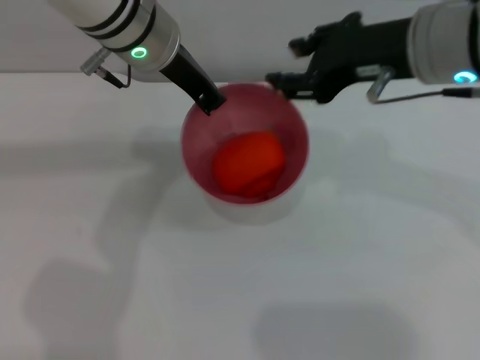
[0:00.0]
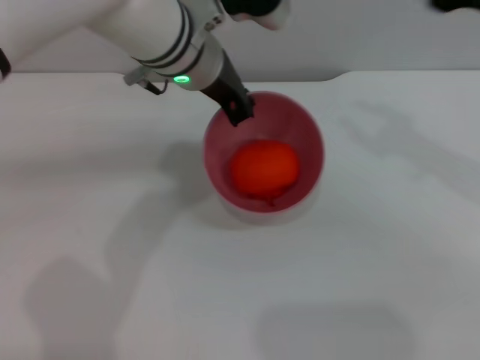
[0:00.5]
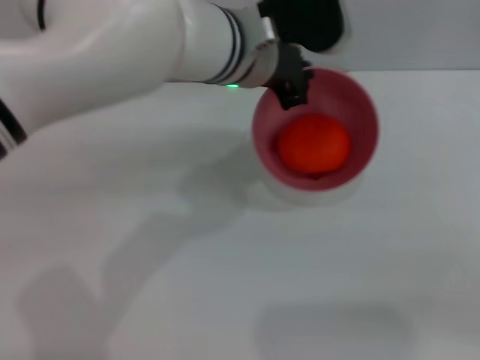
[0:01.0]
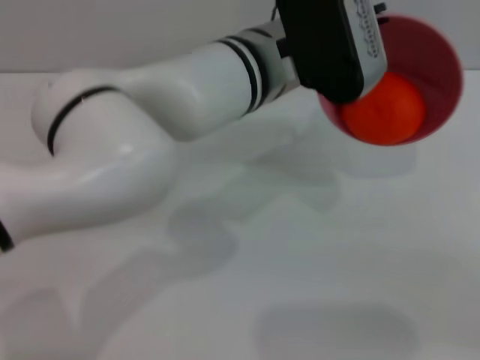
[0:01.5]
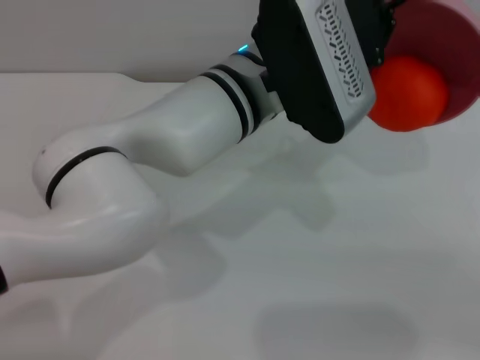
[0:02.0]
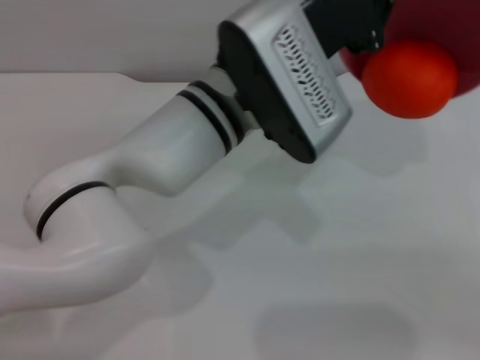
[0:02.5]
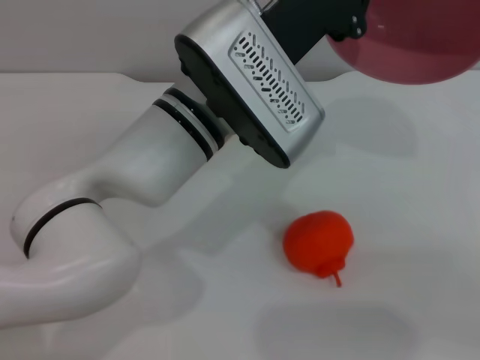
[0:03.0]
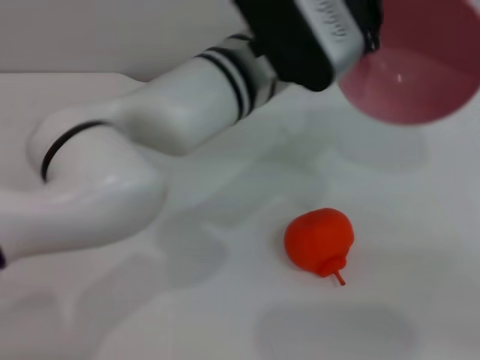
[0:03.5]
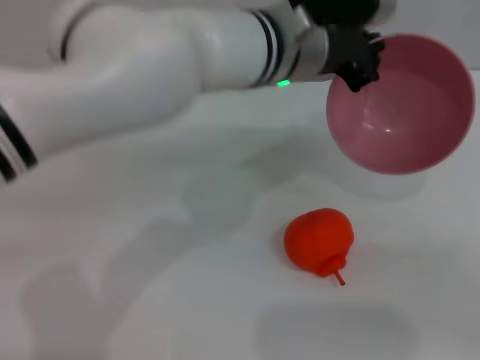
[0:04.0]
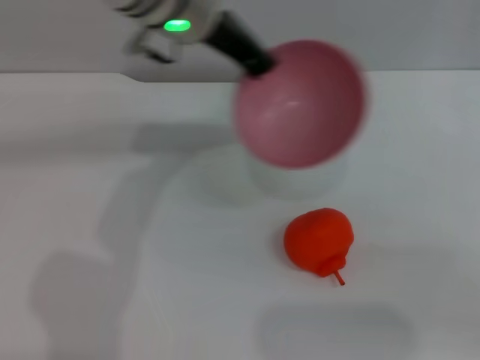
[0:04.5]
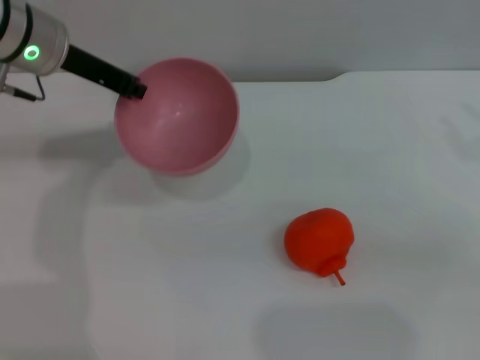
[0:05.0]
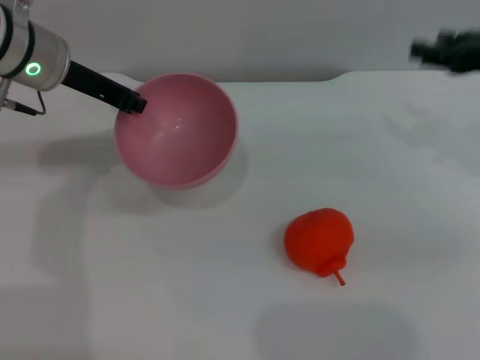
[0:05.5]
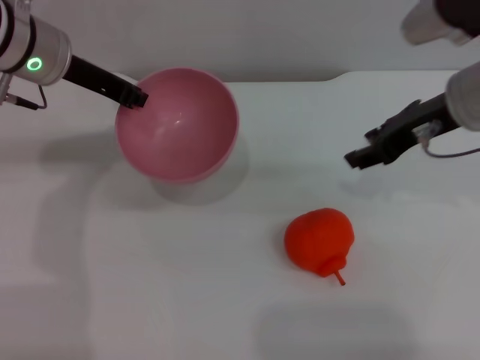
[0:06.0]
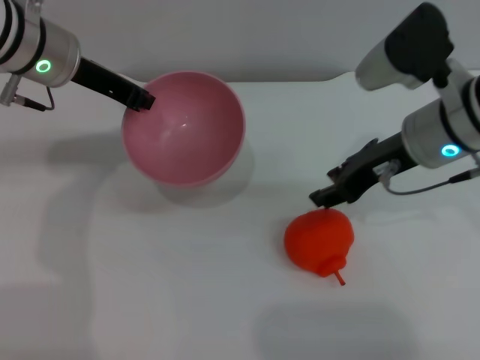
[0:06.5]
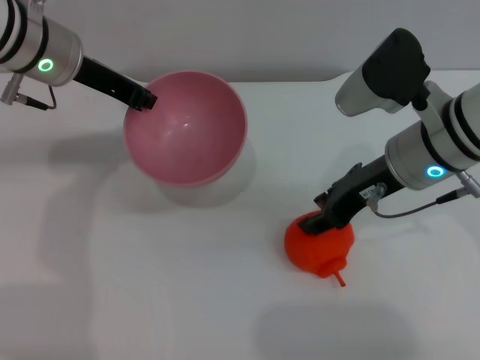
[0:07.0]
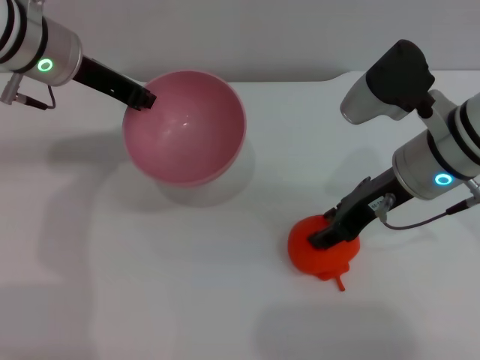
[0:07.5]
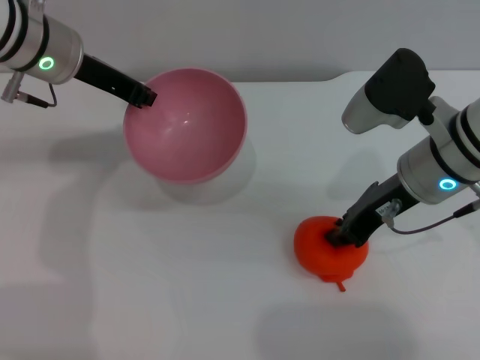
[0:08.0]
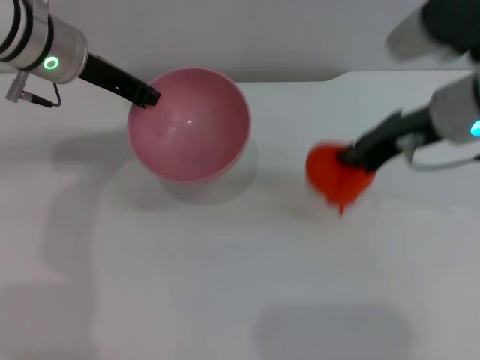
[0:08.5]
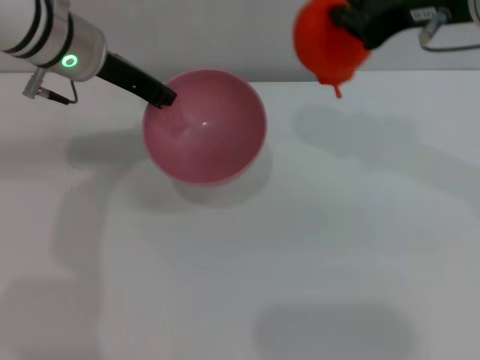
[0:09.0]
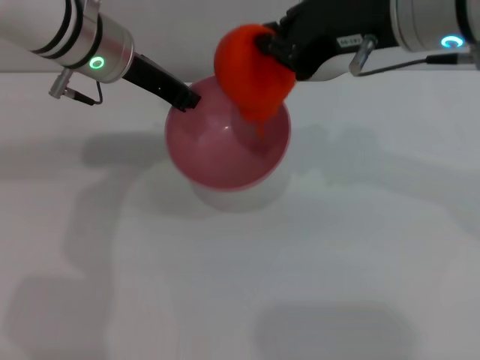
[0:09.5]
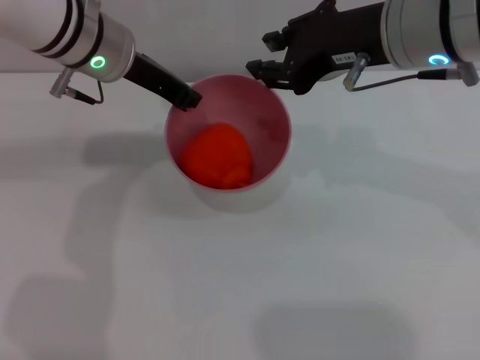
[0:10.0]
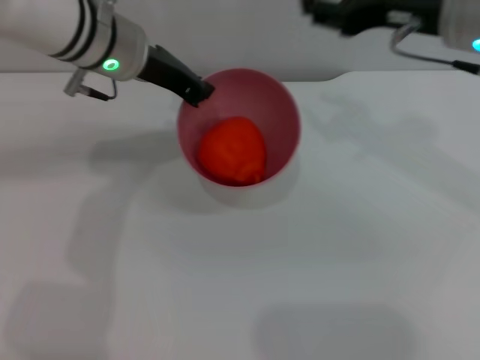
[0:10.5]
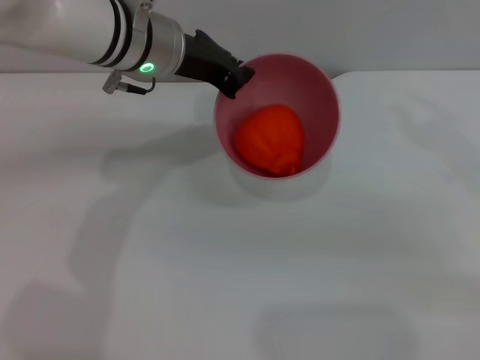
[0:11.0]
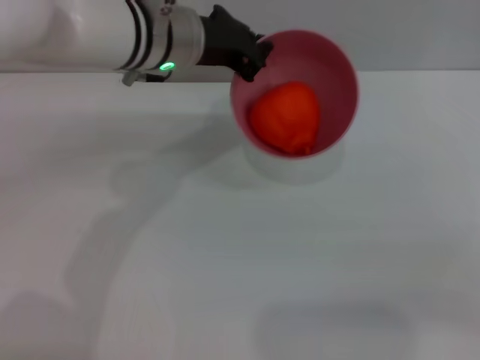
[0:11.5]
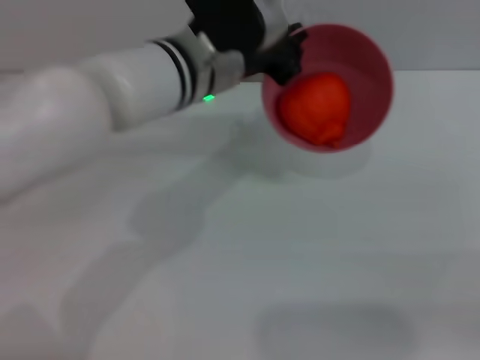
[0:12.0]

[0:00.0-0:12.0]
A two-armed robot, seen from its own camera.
Task of the whole recording: put the orange into the pink bowl and pour it out repeatedly.
Step, 0:00.5 to 0:03.0: Pour the orange out of the bowl.
Step, 0:03.5 to 0:08.5: Pick up the orange with the right gripper.
Step, 0:09.0 to 0:10.0: Place the orange into the bowl.
0:00.0 to 0:02.0: The right gripper shifts approximately 25 cm to the right and backward; the left gripper heads to the right and backward, covering about 10 cm.
0:04.0 to 0:06.0: The right gripper is displaced to the left and forward by some 20 cm, while the left gripper goes some 20 cm to the left.
0:06.0 to 0:08.0: The right gripper goes about 5 cm downward, and closes its fingers.
0:08.0 to 0:10.0: The right gripper moves upward, approximately 10 cm.
0:10.0 to 0:12.0: The right gripper travels to the right, backward and downward by roughly 25 cm, and opens its fingers. Meanwhile the left gripper heads to the right, covering approximately 10 cm.

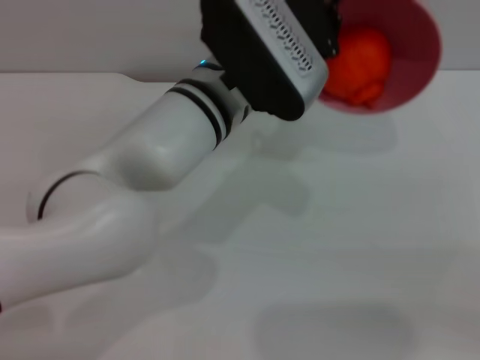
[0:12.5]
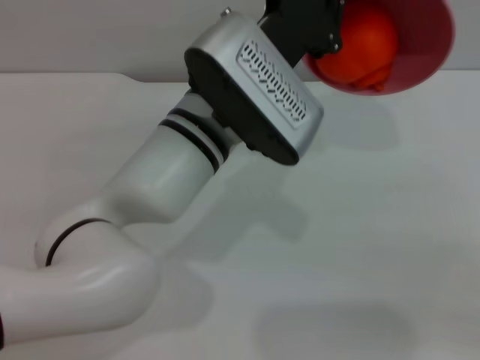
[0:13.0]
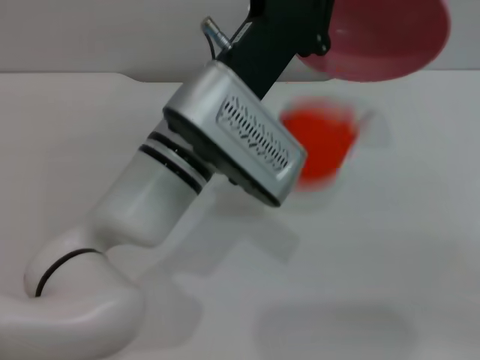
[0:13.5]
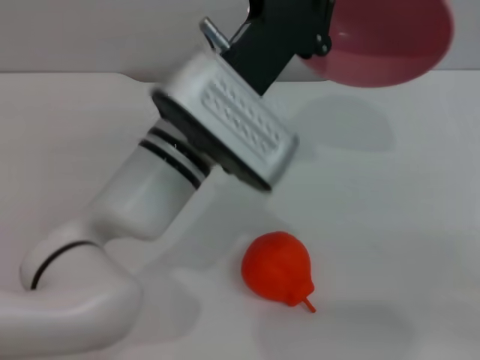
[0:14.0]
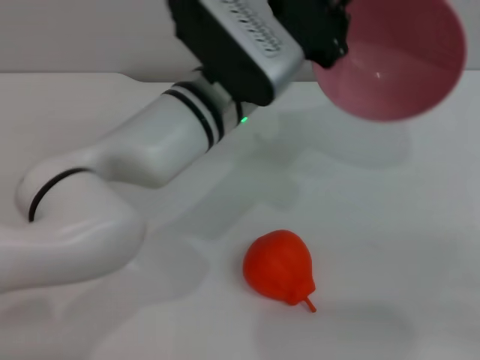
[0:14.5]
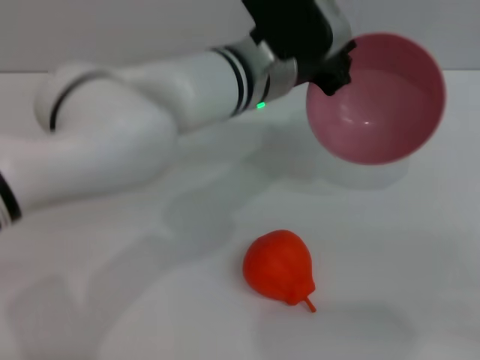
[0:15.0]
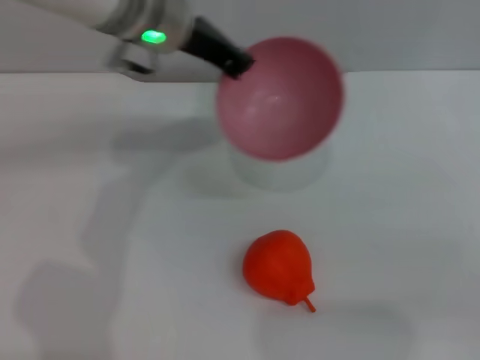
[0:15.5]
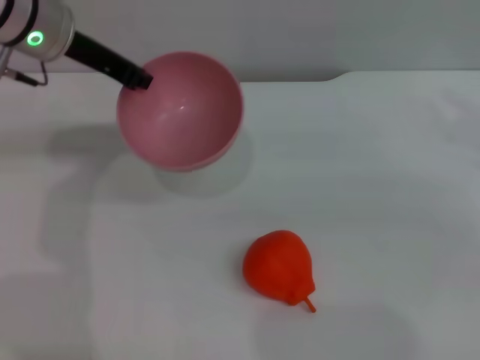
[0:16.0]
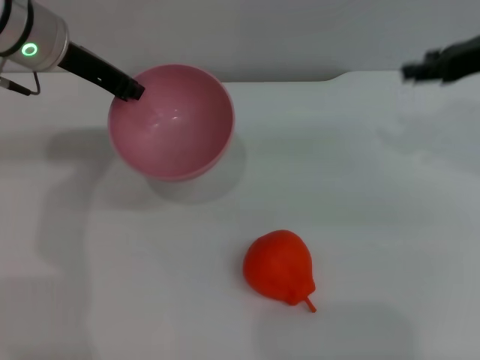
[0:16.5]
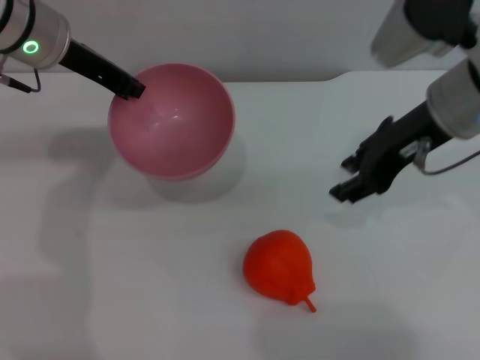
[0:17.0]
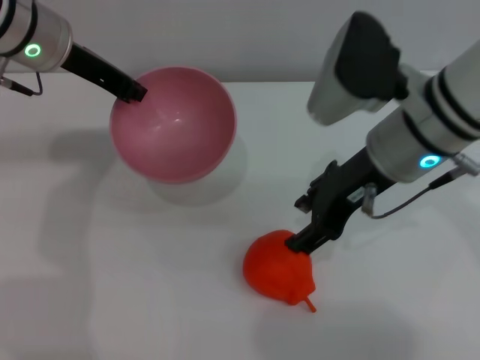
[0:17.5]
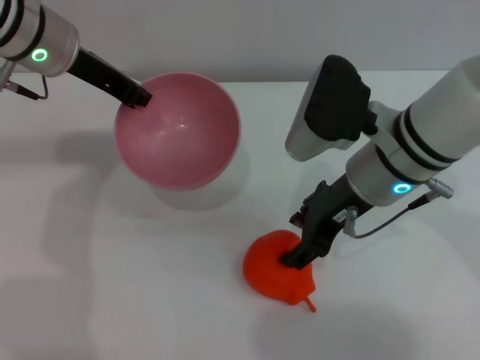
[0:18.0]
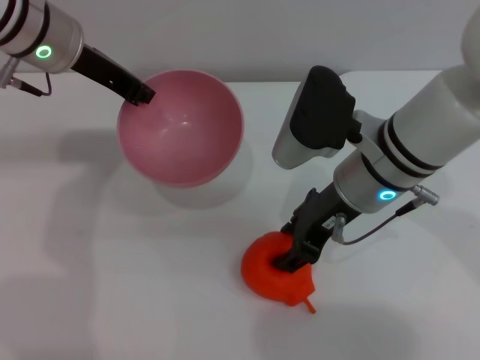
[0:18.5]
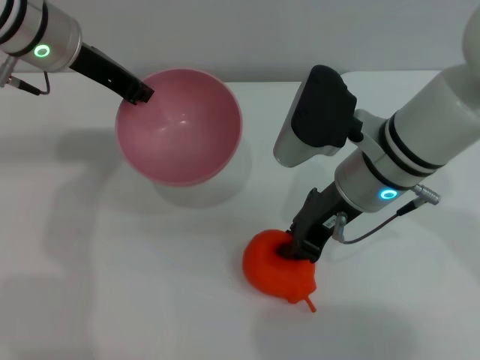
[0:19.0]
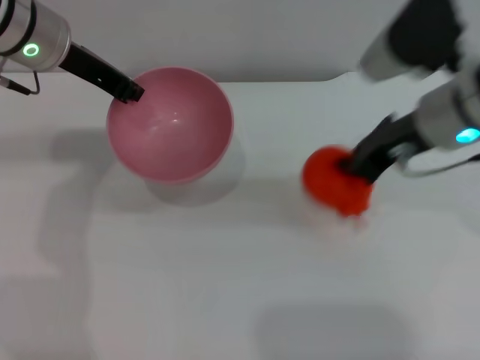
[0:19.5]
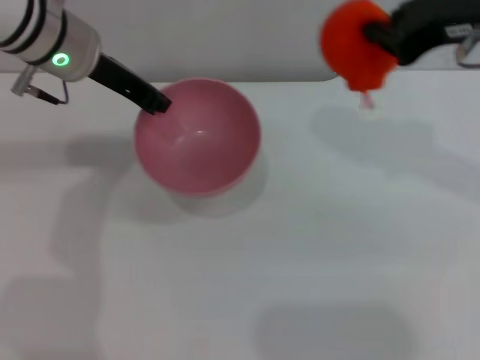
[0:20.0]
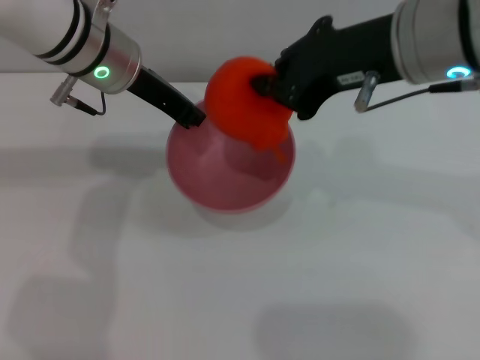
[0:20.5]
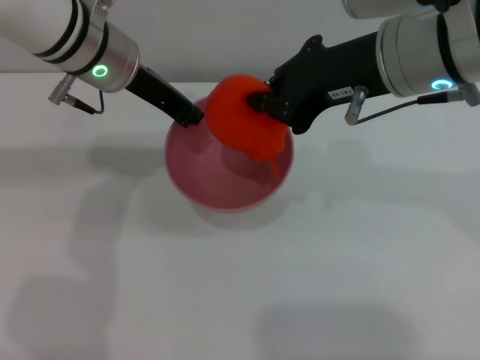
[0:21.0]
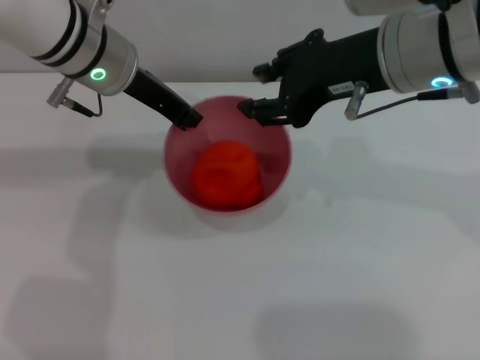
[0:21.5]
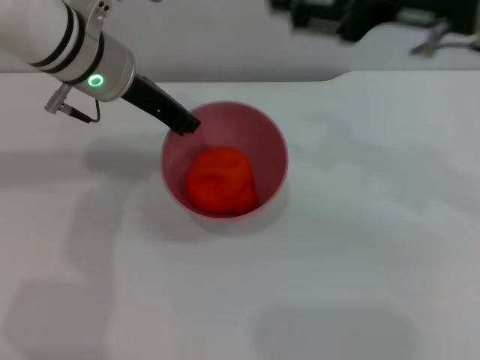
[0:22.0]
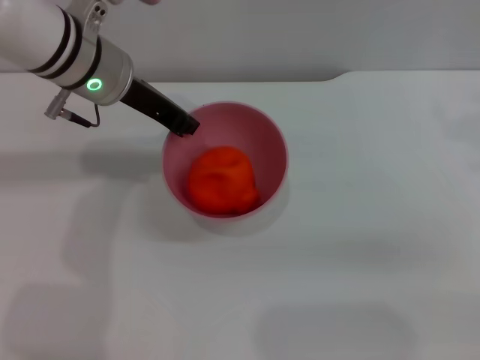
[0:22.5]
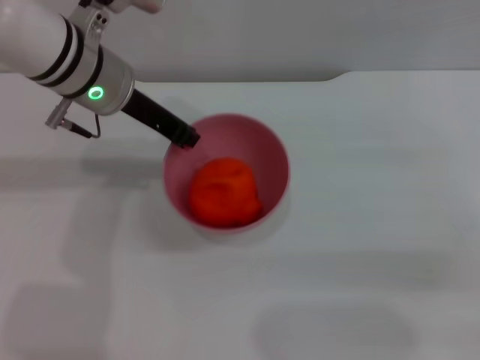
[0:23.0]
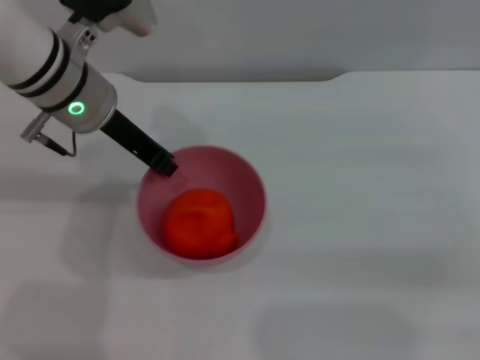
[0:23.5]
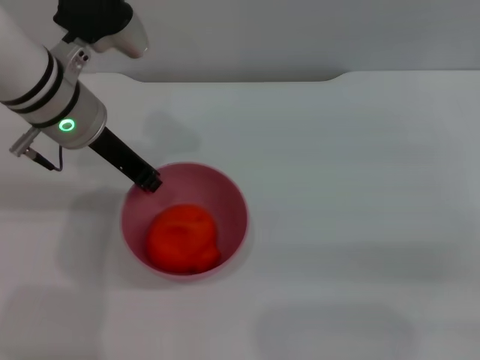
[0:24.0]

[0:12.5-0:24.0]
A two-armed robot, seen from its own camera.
Task of the whole recording: put the orange into the pink bowl and pour it out repeatedly.
Step, 0:14.5 to 0:19.5: Pick up the orange with the right gripper.
Step, 0:20.0 to 0:21.5: Pour the orange out of the bowl.
0:14.5 to 0:16.5: The right gripper is displaced forward, to the left and upward by about 15 cm, while the left gripper shifts about 20 cm to the left and forward.
0:16.5 to 0:18.5: The right gripper moves to the left and downward, about 20 cm.
0:18.5 to 0:20.0: The right gripper is displaced upward and to the right by some 20 cm, and closes up.
0:20.0 to 0:22.0: The right gripper opens its fingers.
0:22.0 to 0:24.0: The right gripper heads to the right and downward, covering some 20 cm.

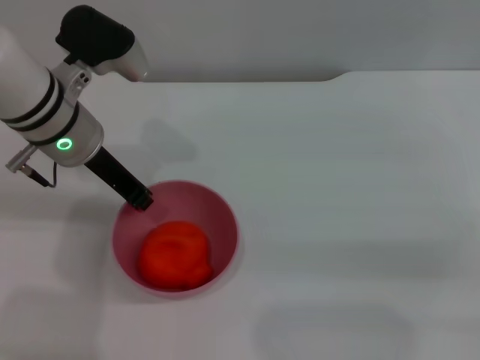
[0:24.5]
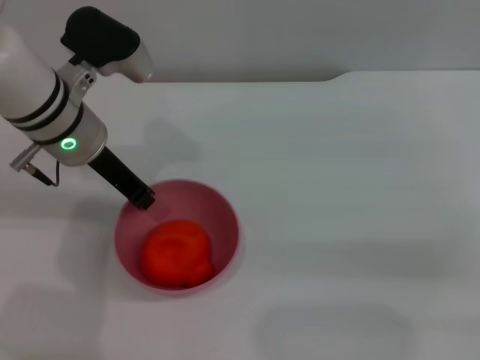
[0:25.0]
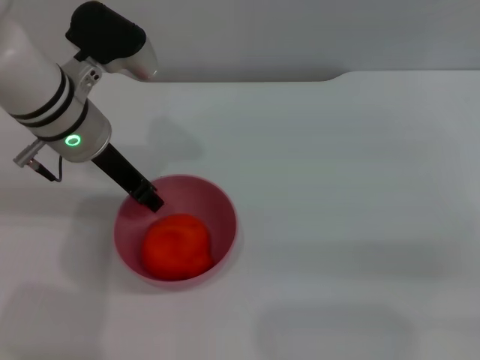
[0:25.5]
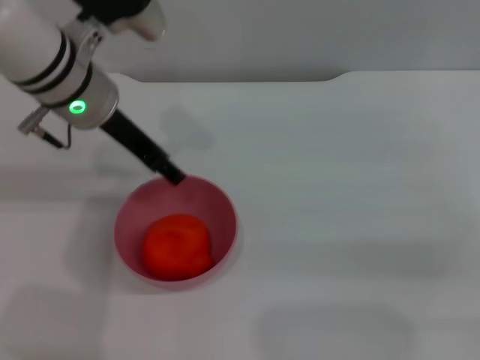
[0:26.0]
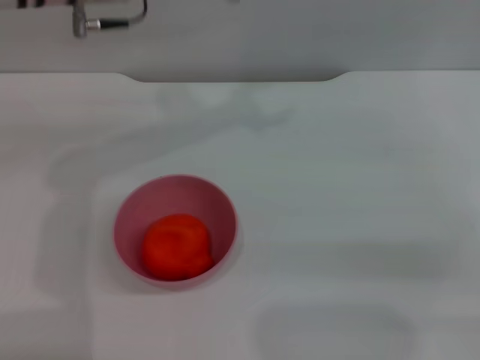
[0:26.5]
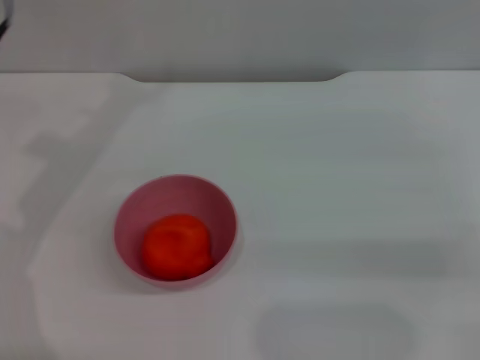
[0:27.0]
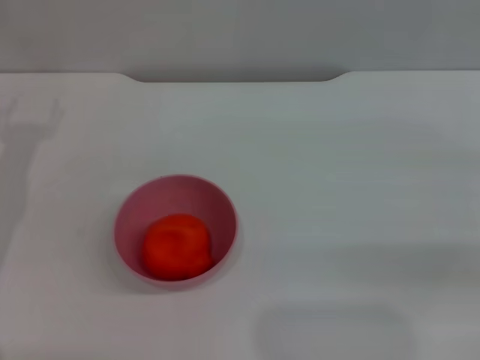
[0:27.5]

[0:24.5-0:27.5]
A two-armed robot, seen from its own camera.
Task of the whole recording: put the orange into the pink bowl and pour it out repeatedly.
0:24.5 to 0:26.0: The left gripper opens its fingers.
0:26.0 to 0:27.5: The left gripper goes about 20 cm to the left and downward.
